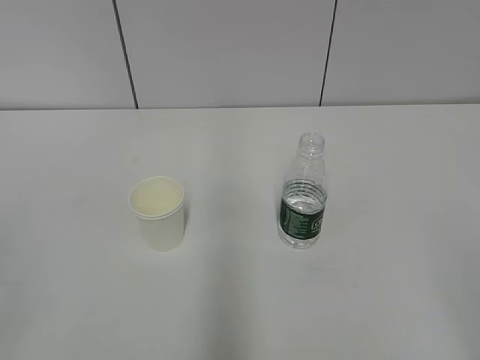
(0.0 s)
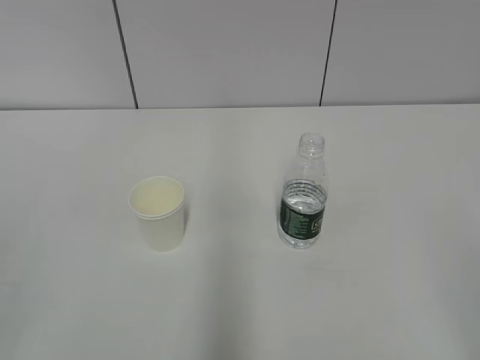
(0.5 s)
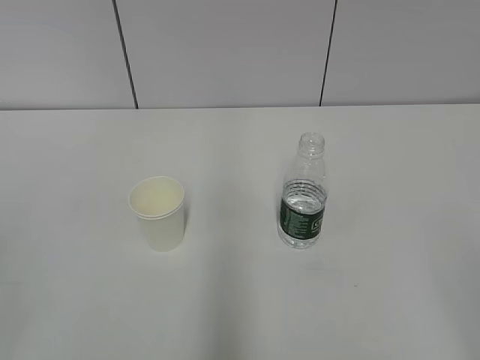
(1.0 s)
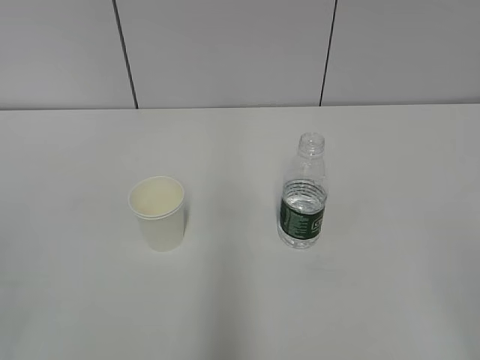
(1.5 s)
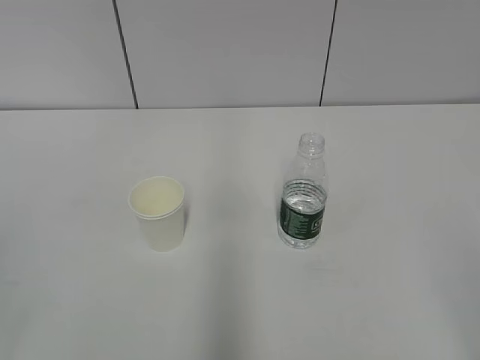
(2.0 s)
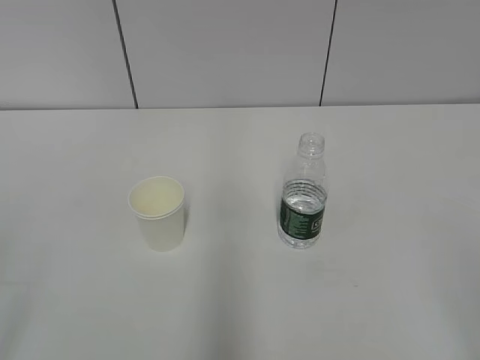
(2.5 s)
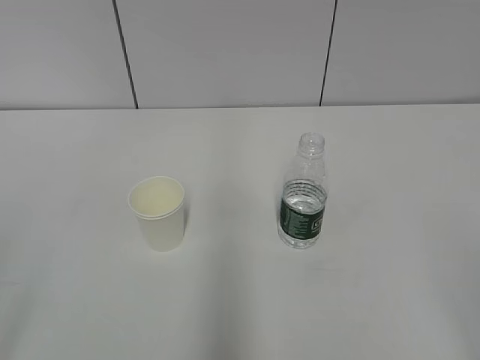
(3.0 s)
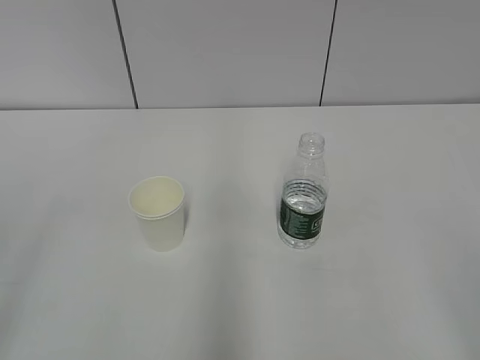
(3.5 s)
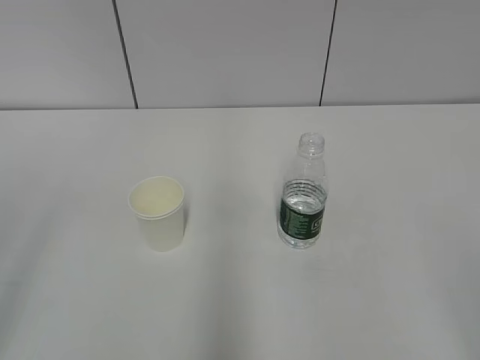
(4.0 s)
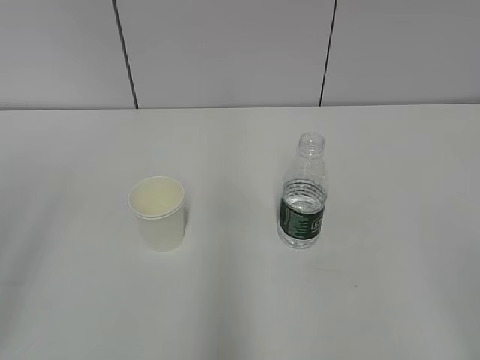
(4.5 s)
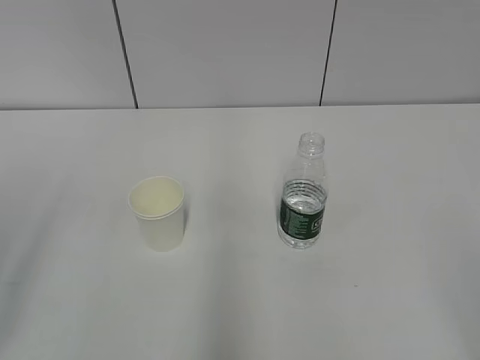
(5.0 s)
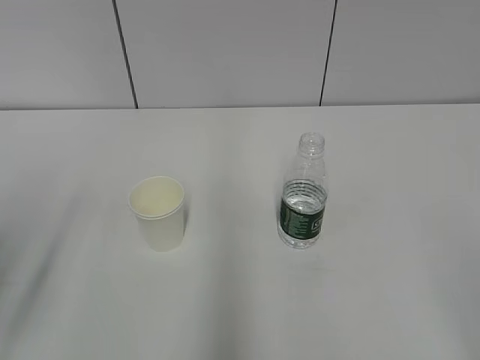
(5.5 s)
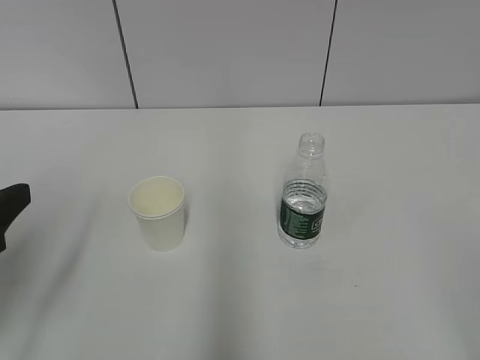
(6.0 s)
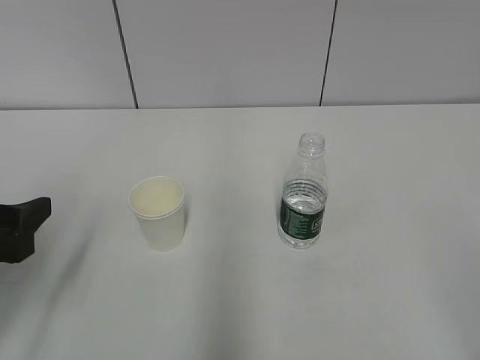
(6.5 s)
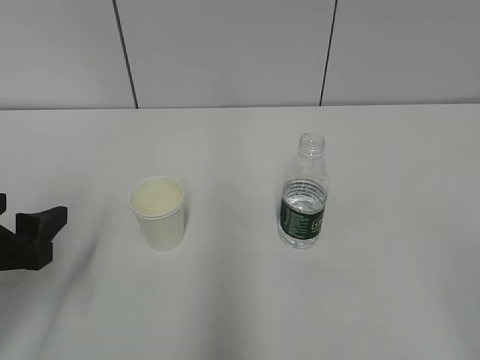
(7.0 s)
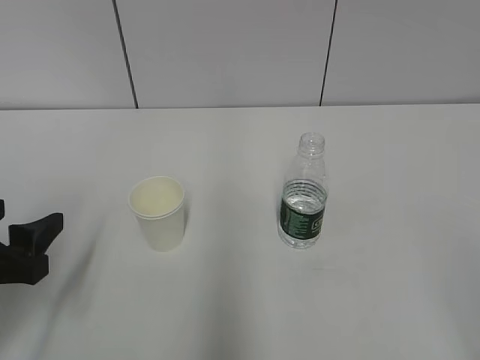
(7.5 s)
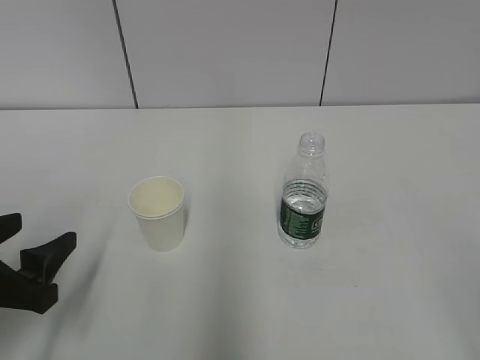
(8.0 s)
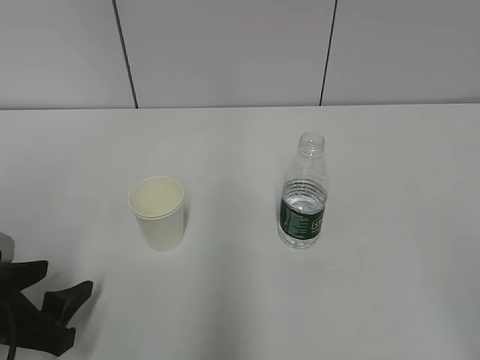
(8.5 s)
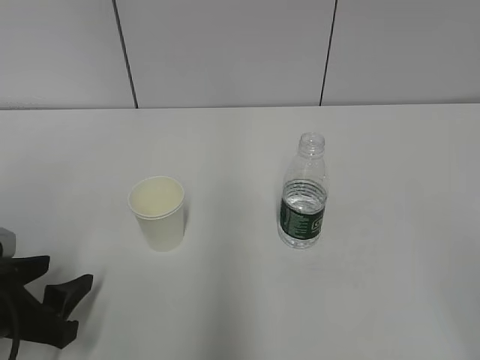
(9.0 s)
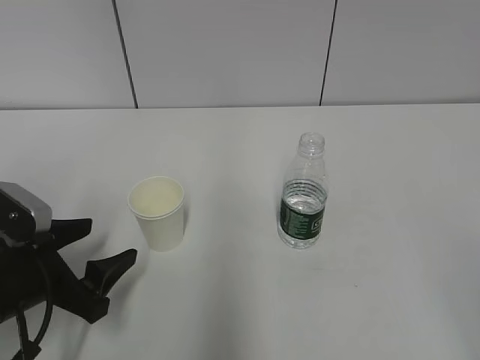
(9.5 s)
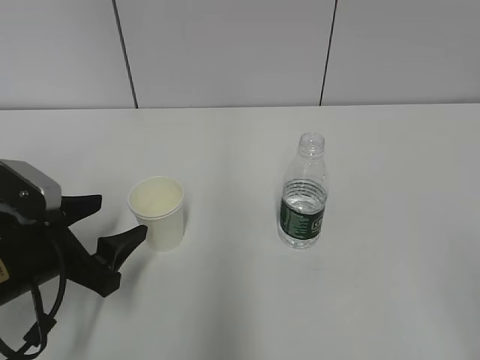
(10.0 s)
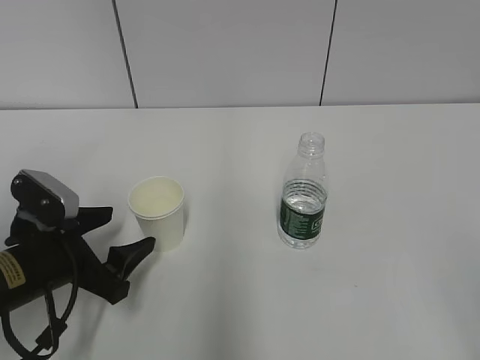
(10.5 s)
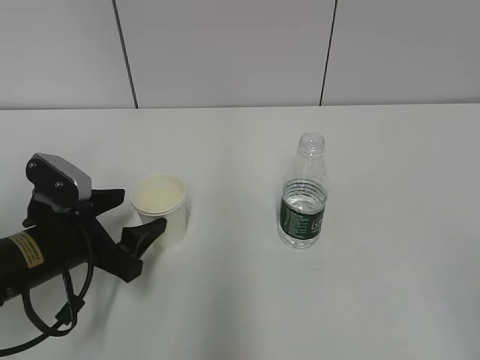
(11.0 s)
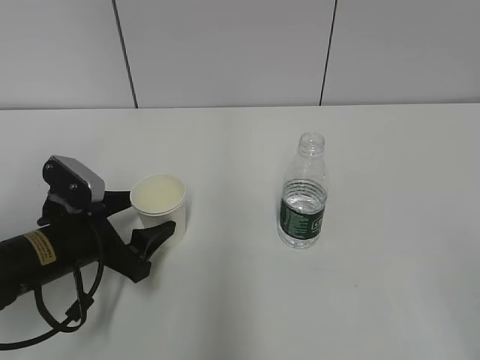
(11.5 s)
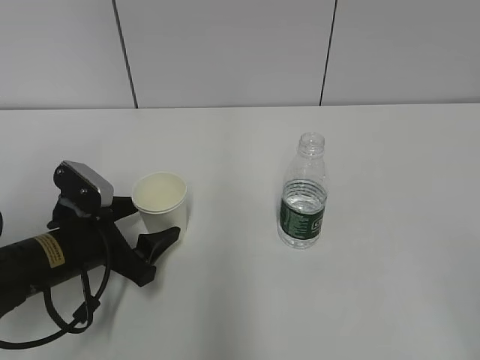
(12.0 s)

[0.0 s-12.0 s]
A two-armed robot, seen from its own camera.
4.0 to 6.0 s: The left gripper goes about 15 cm downward and forward.
6.0 to 8.0 s: The left gripper goes approximately 5 cm downward.
8.0 to 10.0 s: The left gripper is displaced forward by approximately 5 cm.
10.0 to 12.0 s: The left gripper moves some 5 cm.

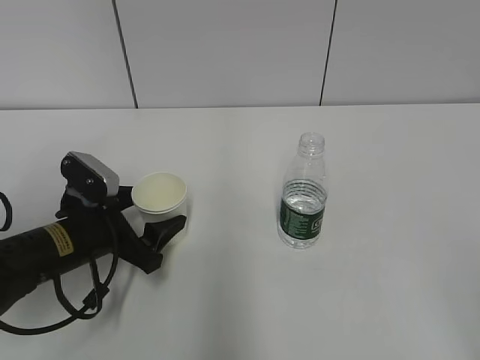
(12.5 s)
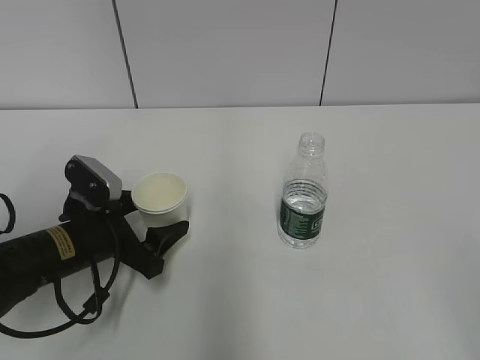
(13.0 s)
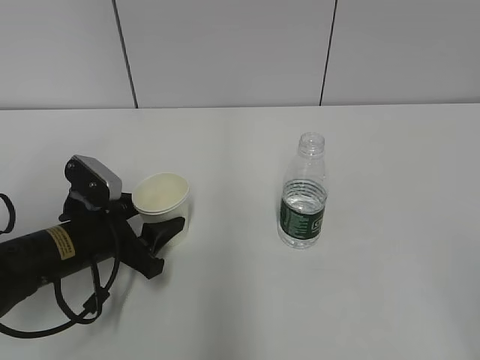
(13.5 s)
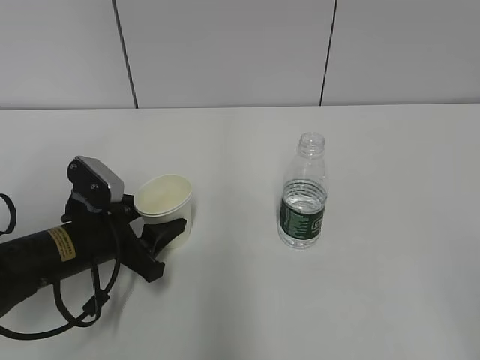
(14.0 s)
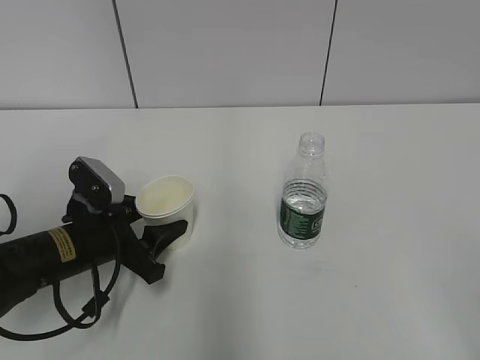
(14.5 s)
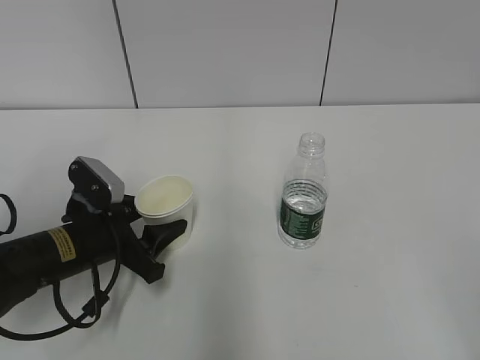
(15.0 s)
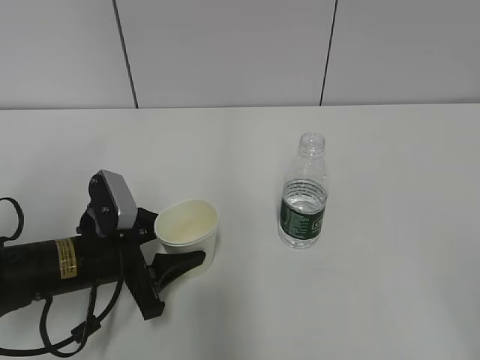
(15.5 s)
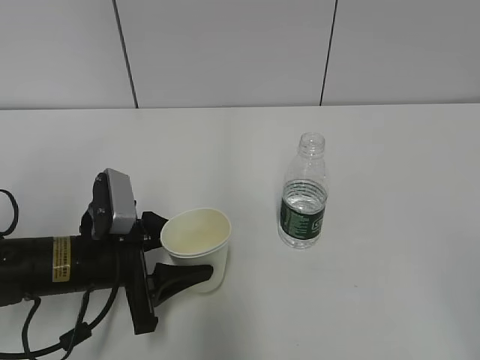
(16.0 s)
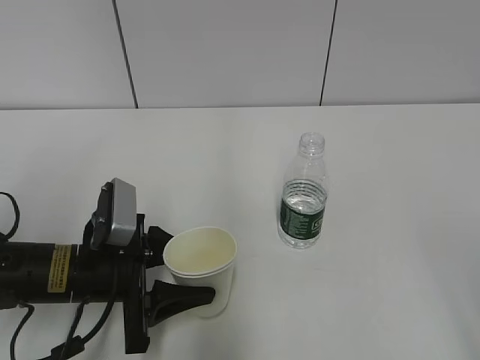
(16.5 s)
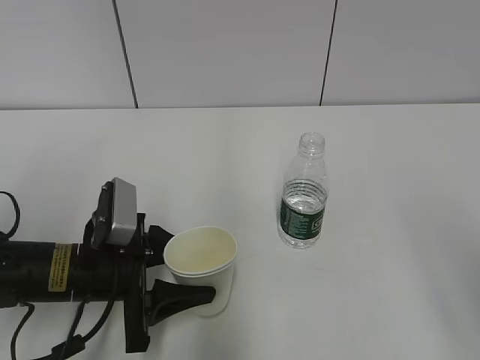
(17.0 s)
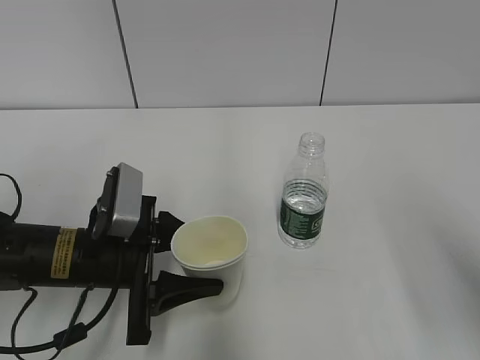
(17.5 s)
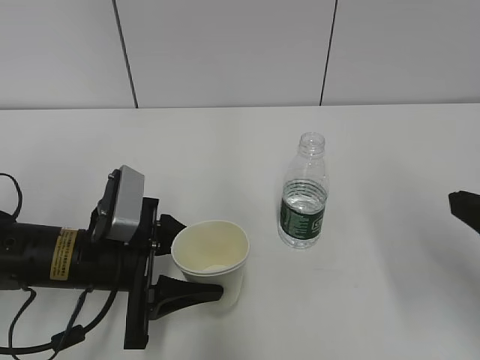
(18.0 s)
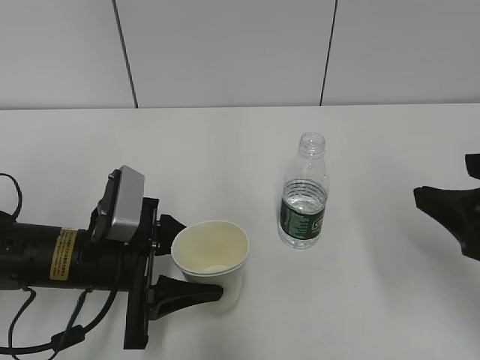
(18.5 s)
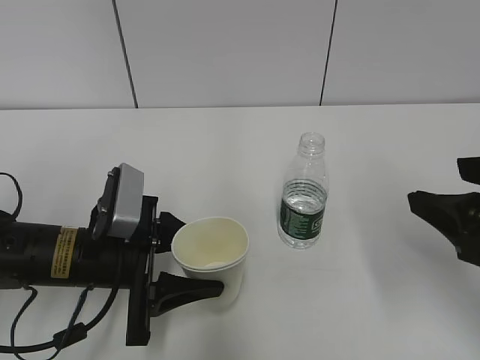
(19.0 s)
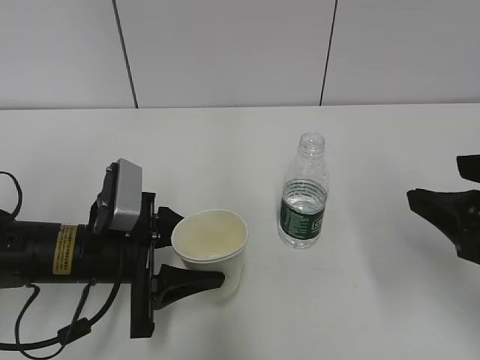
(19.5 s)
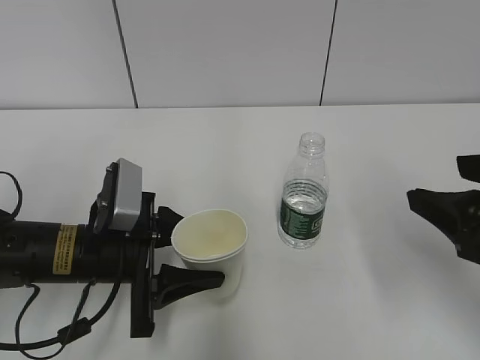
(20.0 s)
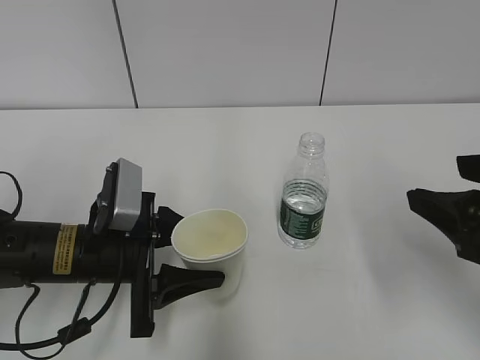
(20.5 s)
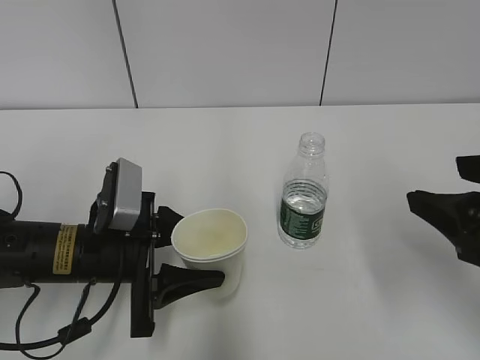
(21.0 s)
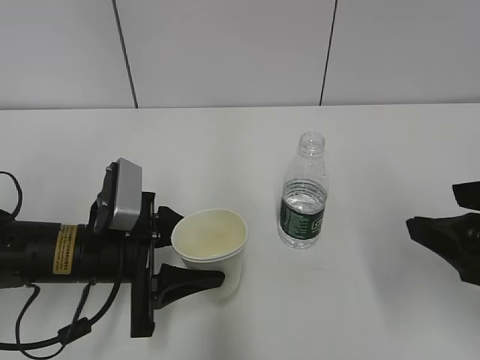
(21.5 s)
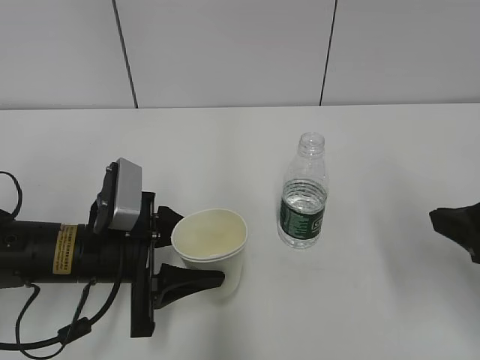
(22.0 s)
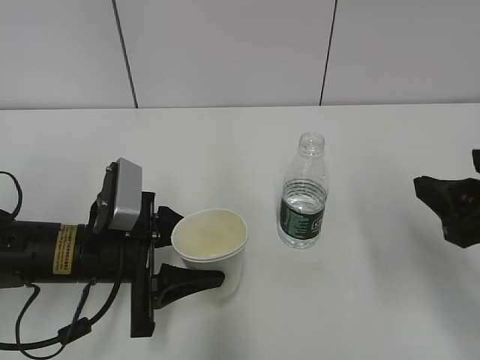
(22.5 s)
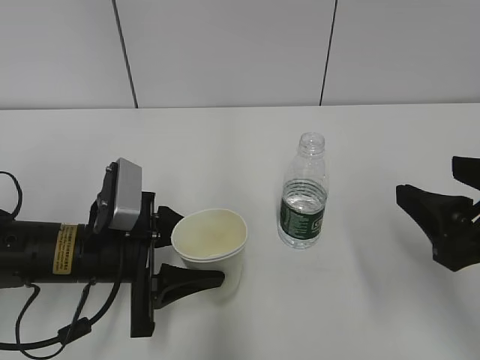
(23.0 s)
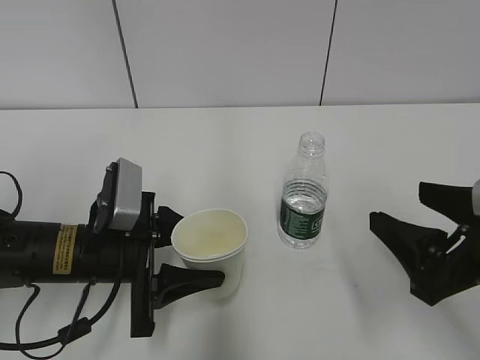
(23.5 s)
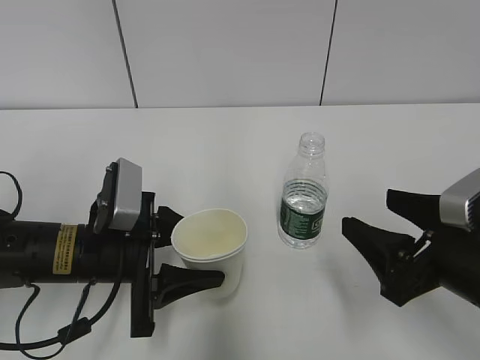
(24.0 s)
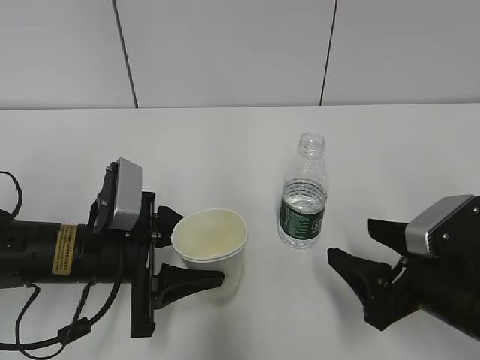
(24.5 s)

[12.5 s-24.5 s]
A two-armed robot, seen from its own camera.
12.5 to 14.5 s: The left gripper closes up.
16.5 to 18.5 s: The right gripper travels forward by approximately 15 cm.
18.5 to 20.5 s: Neither gripper changes place.
20.5 to 22.5 s: The grippers move only a little.
22.5 to 24.5 s: The right gripper heads downward, covering approximately 10 cm.

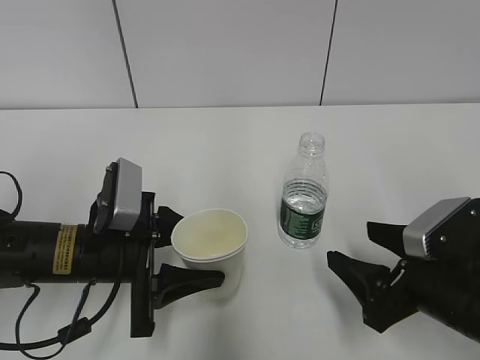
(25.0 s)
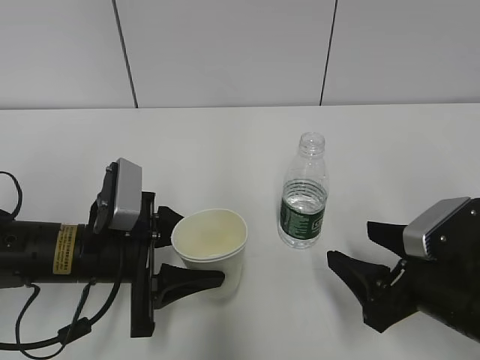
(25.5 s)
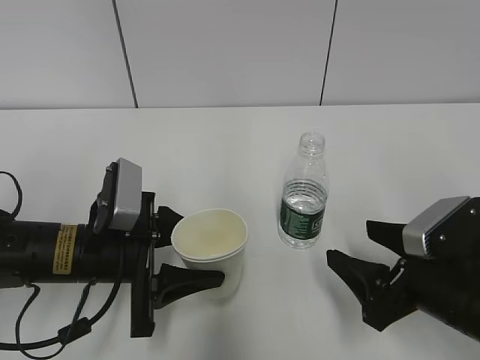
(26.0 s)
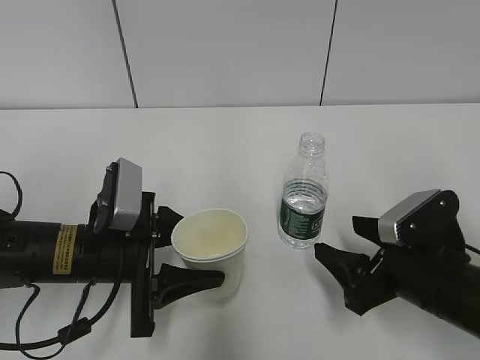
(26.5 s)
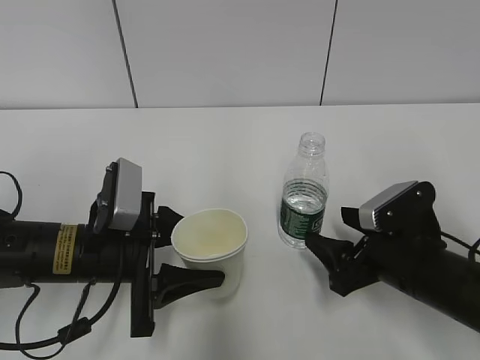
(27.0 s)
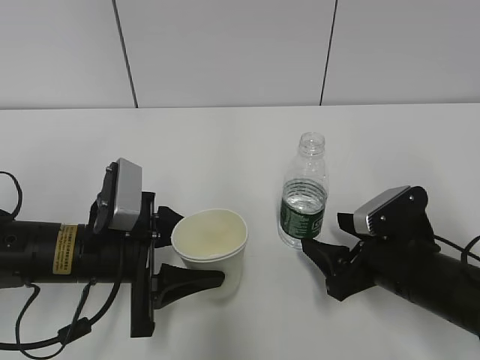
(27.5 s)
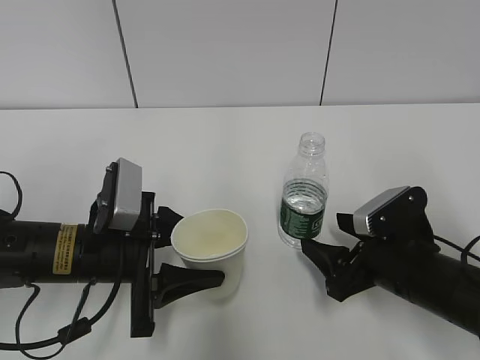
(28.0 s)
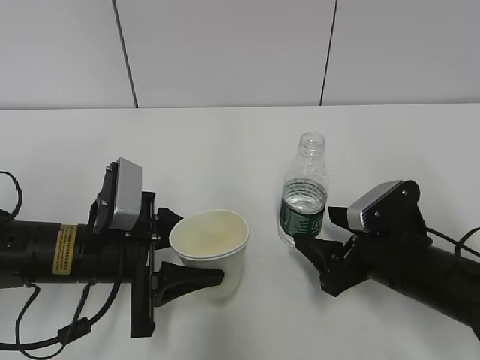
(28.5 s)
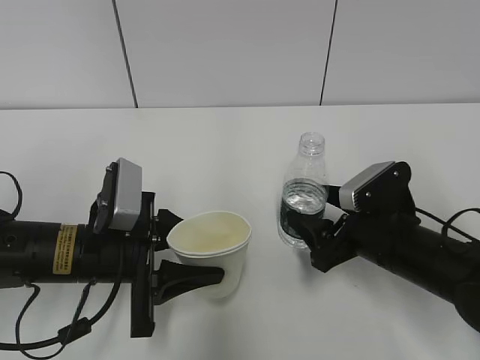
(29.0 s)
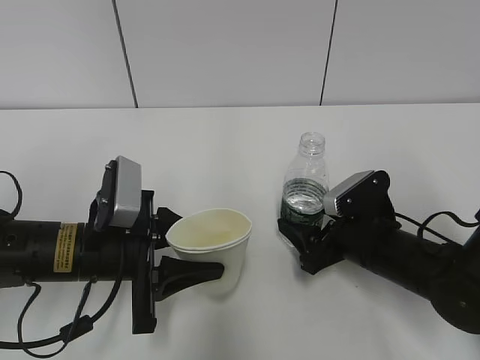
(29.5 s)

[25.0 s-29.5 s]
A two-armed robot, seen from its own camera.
25.0 to 27.0 s: The right gripper goes approximately 5 cm forward.
27.0 to 29.5 s: The right gripper ends up roughly 5 cm from where it was.
